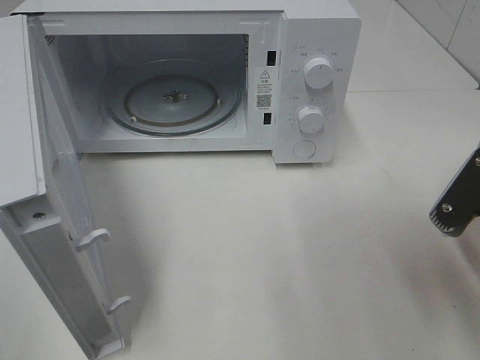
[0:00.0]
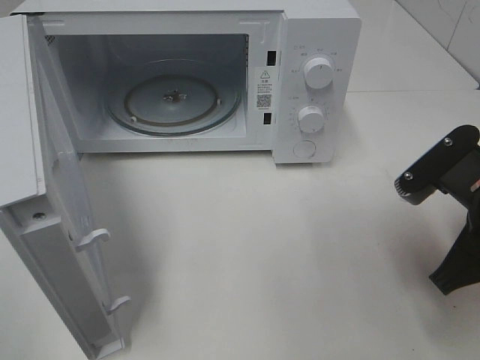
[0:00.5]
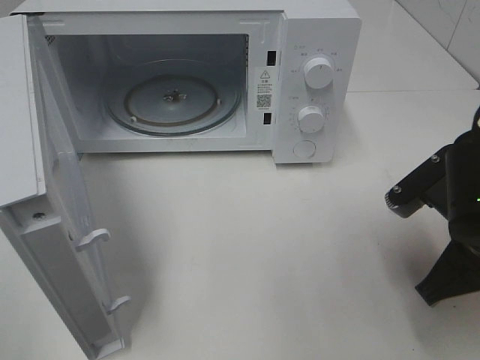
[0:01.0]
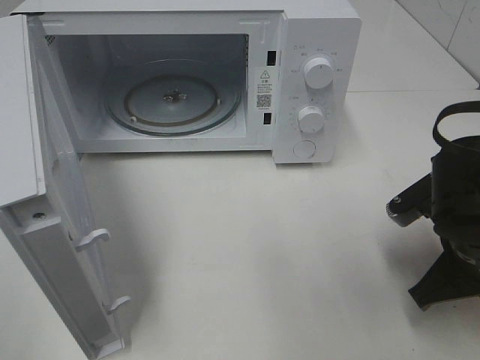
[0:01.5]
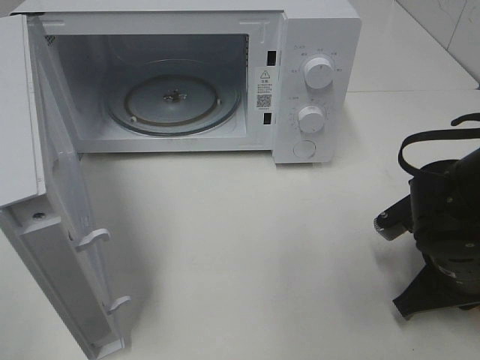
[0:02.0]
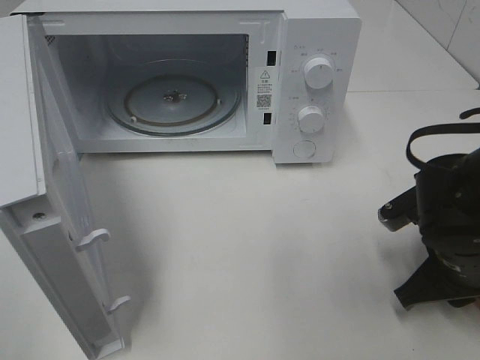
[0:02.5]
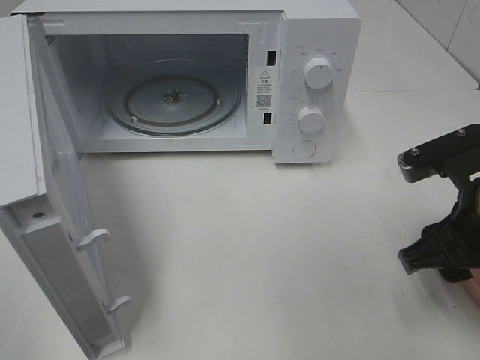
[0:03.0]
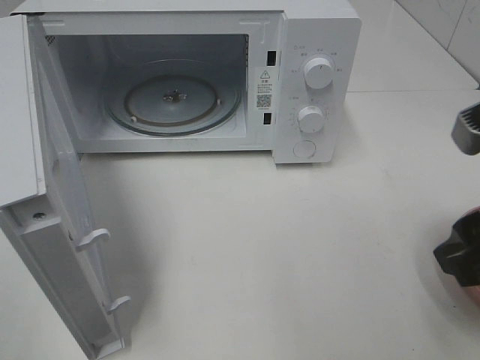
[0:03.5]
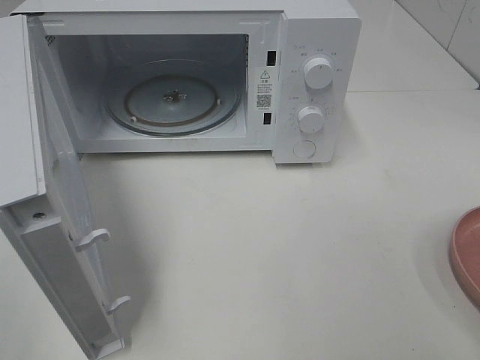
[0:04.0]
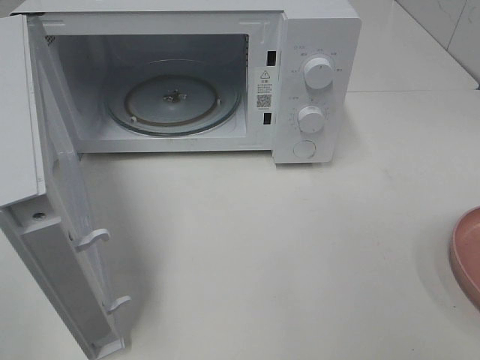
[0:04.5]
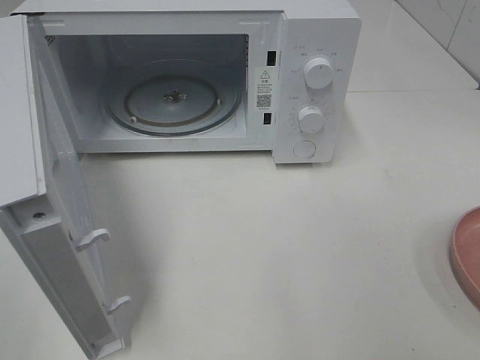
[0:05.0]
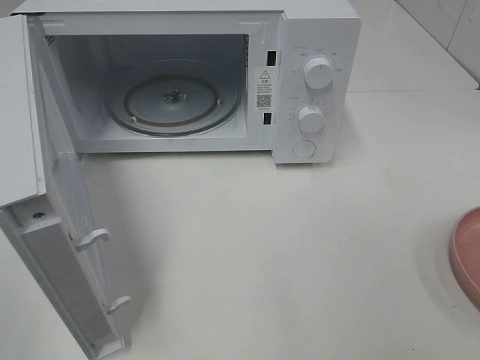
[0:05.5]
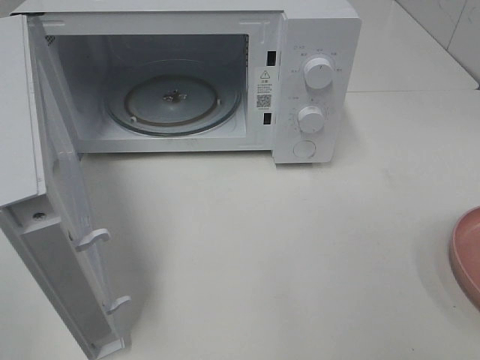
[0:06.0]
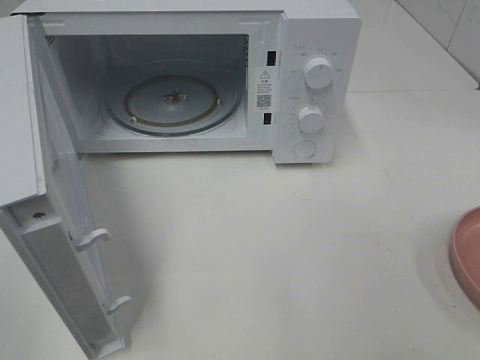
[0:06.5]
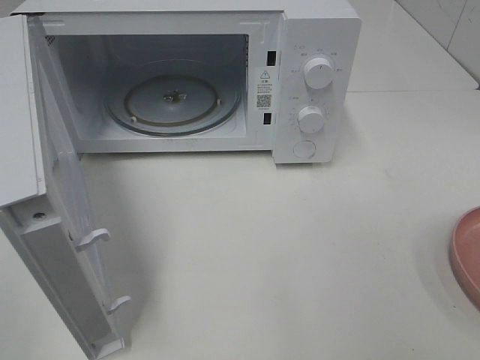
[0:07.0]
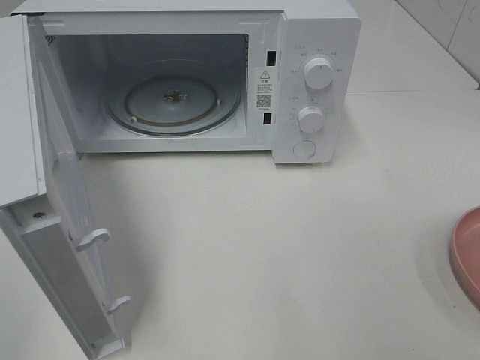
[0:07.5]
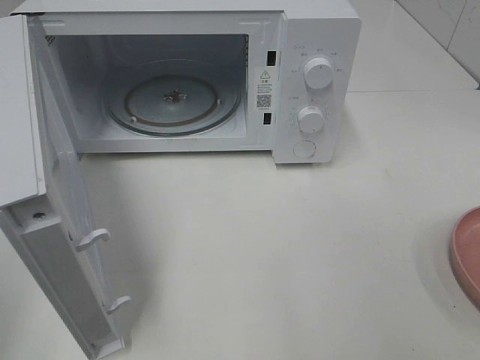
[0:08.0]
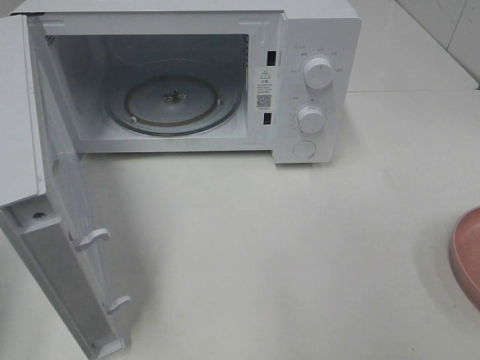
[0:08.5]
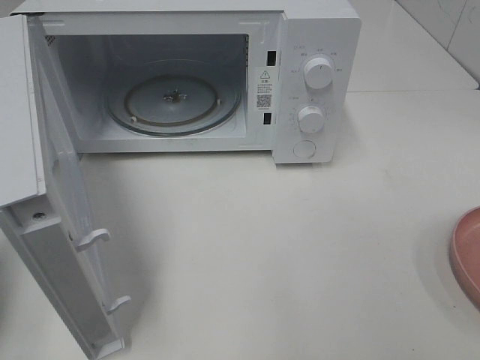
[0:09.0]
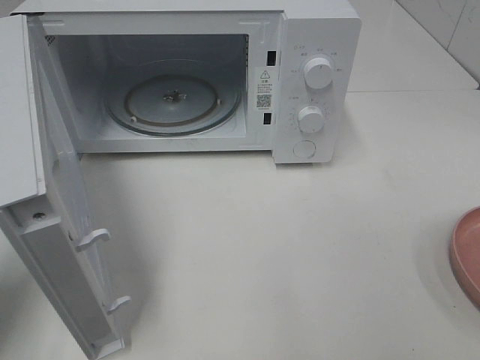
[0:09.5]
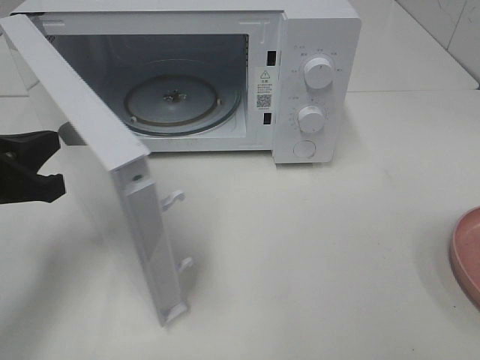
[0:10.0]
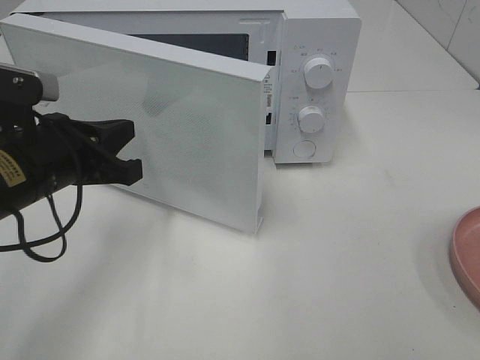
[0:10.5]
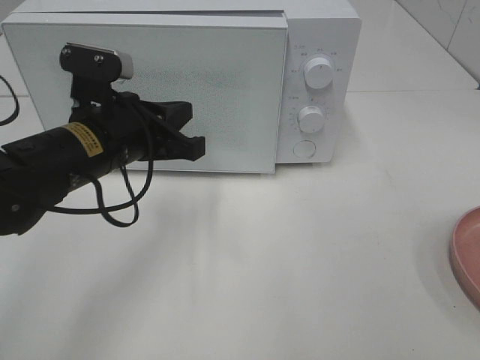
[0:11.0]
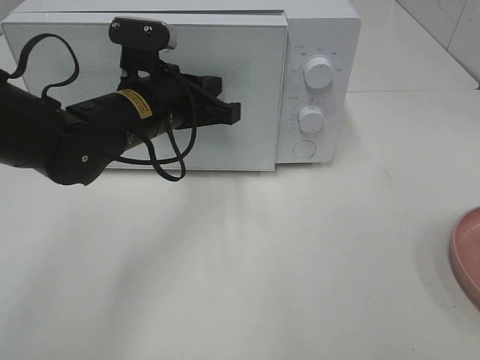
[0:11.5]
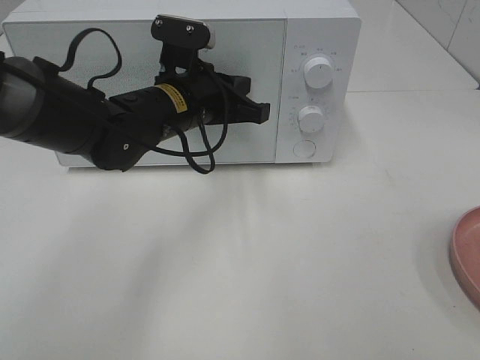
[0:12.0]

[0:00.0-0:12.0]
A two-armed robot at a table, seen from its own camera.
Task of the whole recording: Heat the burger.
Step, 0:00.0 to 0:02.5: Right hand: place the plate on the table.
0:00.0 to 0:02.0: The right gripper shifts roughly 10 cm downward and forward.
0:02.0 to 0:04.0: The right gripper goes about 25 cm upward and backward, and opens its fingers.
0:08.0 to 0:10.0: The left gripper goes roughly 20 cm forward, downward and to the right.
0:10.0 to 0:12.0: The left gripper travels to the right and forward by approximately 25 cm.

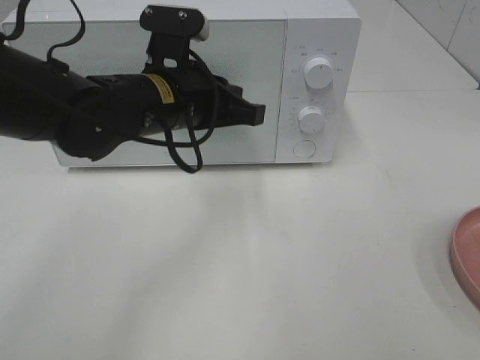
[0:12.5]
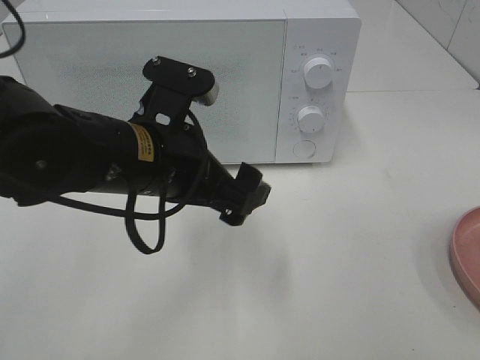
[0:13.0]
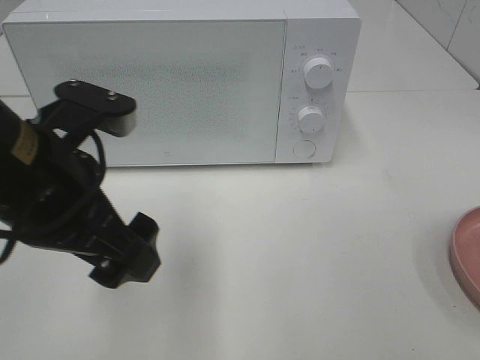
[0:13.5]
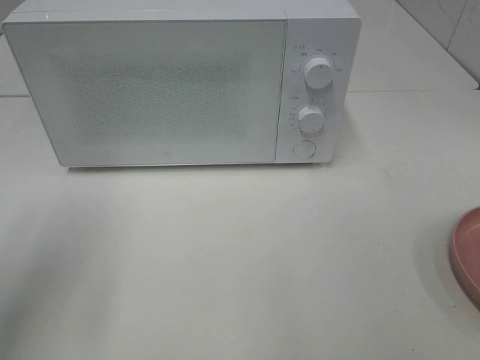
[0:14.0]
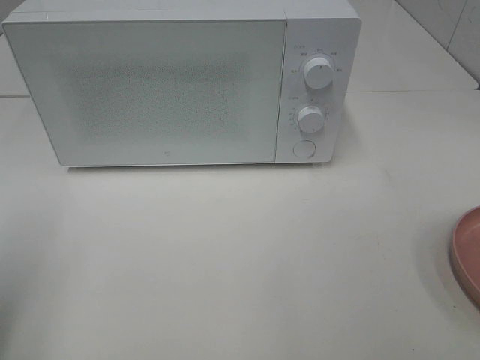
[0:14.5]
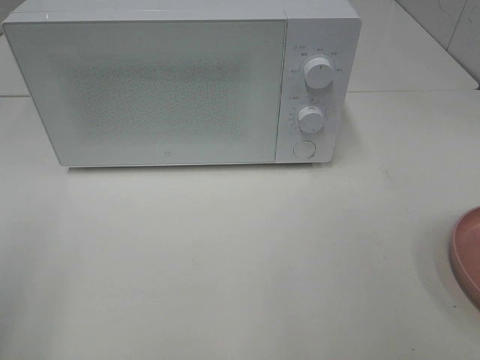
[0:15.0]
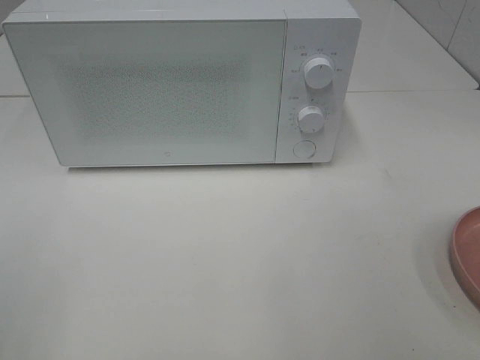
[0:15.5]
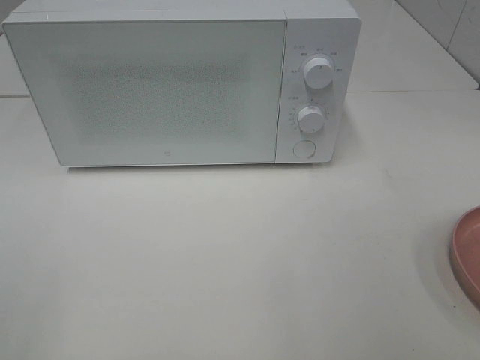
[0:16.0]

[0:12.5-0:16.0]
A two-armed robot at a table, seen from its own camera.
Task of the whole recording: Heat the burger.
0:12.5 to 0:14.5: The left gripper goes some 30 cm to the left and backward, and opens its fingers.

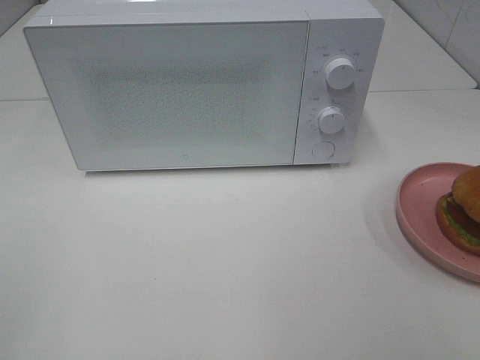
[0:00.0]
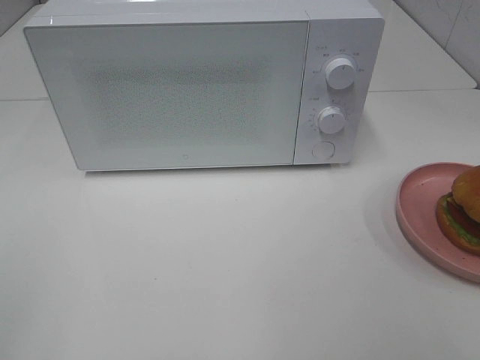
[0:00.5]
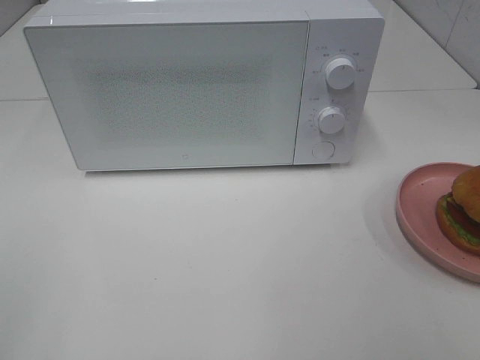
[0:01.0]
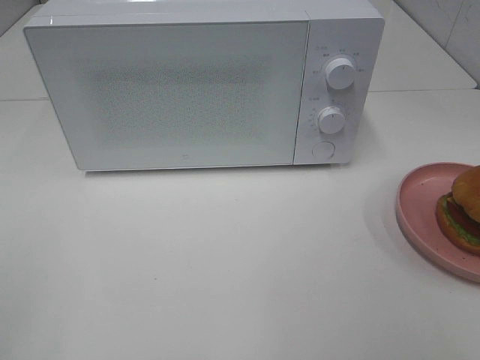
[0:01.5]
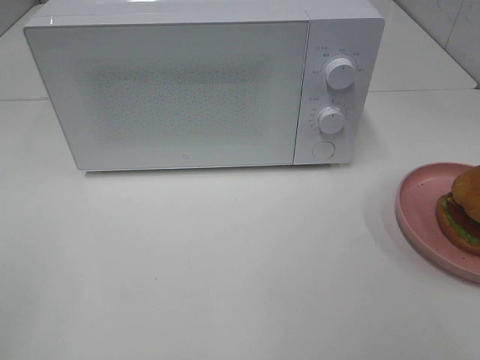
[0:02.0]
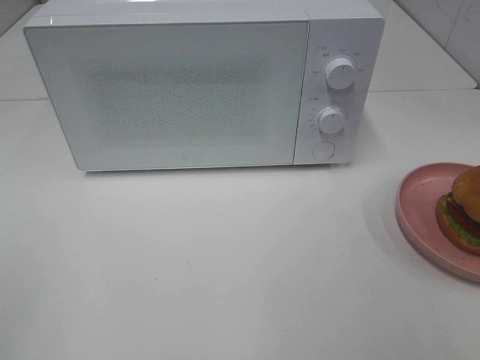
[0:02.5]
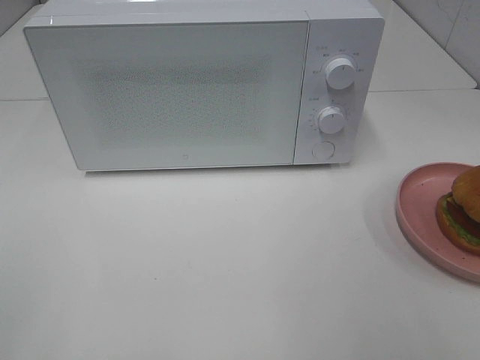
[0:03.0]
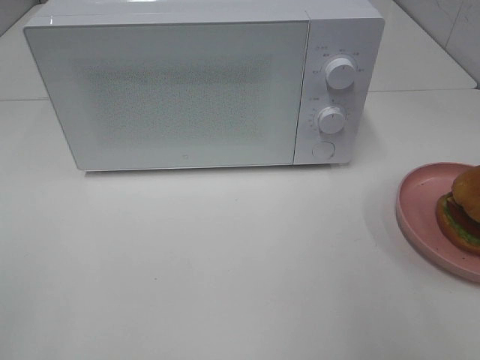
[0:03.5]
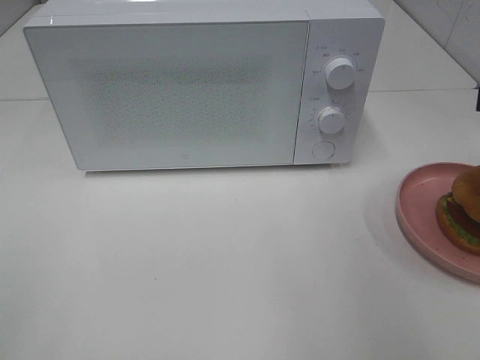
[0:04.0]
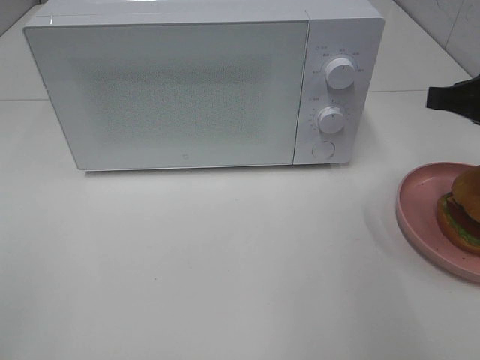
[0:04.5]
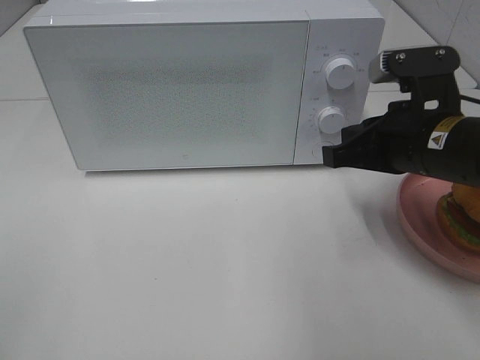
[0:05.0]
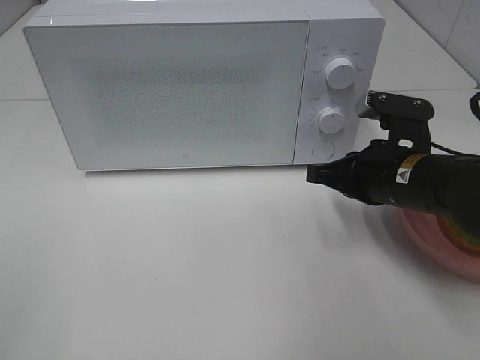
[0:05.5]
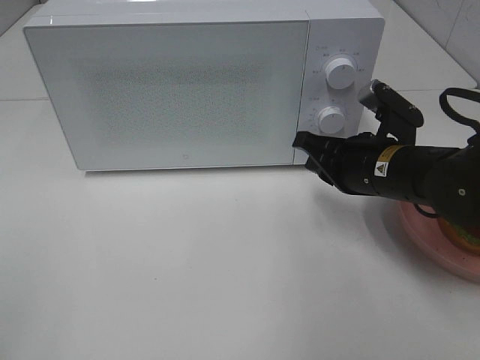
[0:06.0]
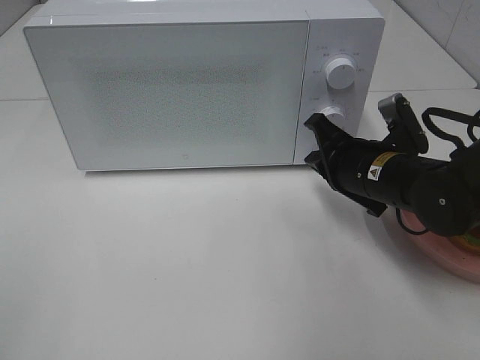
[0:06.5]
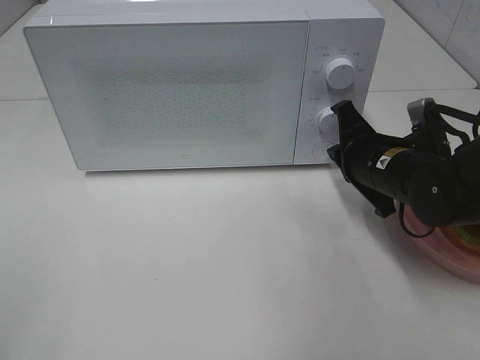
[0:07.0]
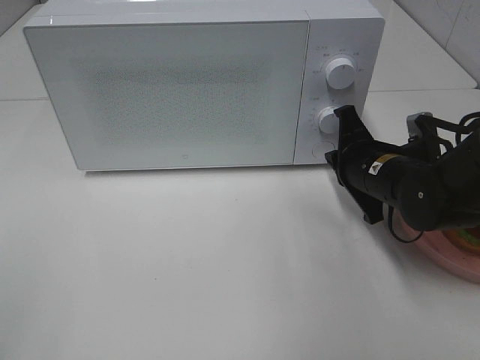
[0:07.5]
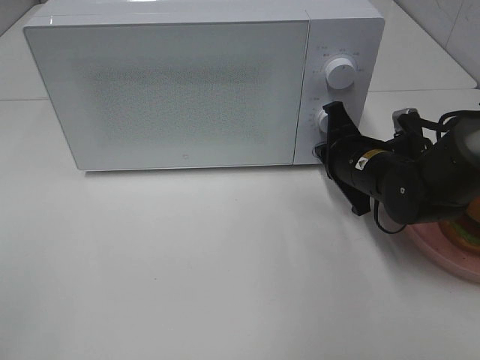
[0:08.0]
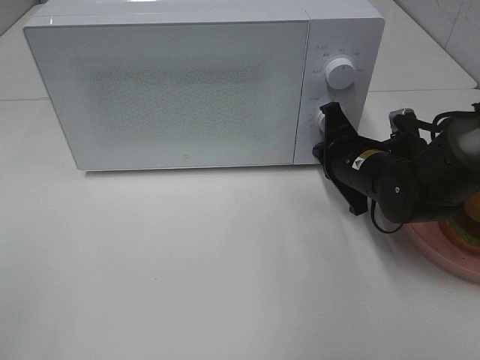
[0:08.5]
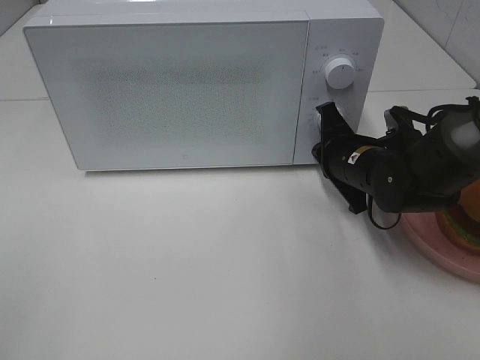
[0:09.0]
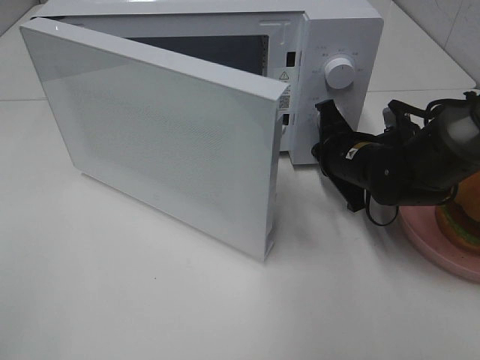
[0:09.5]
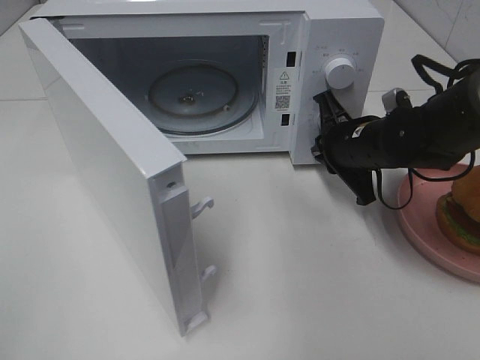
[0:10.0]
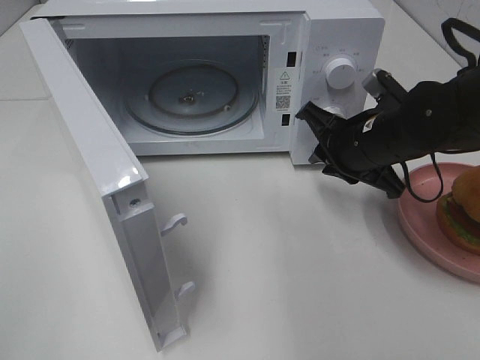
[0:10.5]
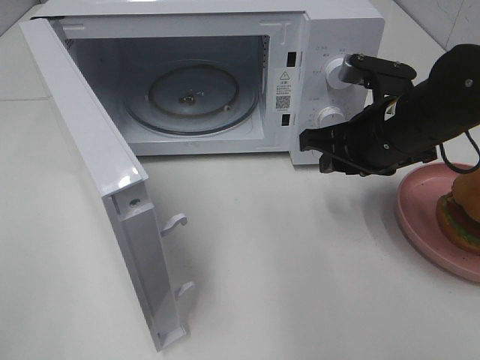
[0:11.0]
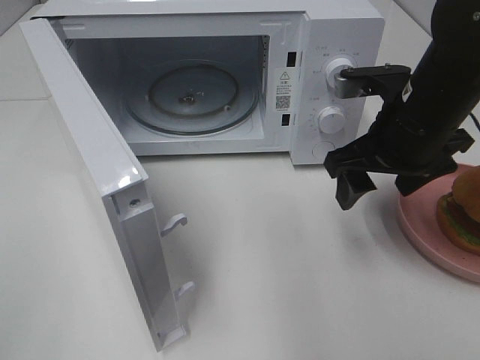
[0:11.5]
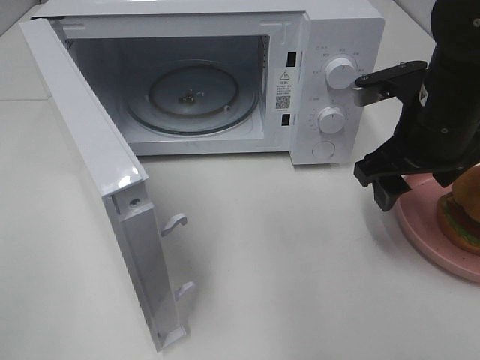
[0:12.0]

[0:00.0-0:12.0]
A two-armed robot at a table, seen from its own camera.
Task of the whole recording: Heat the burger.
Step, 0:00.0 to 0:10.0: Right hand: press the switch.
0:00.0 to 0:02.0: The two grippers keep their place.
0:04.0 to 0:06.0: The right gripper is displaced downward, to the left and forward by about 20 cm, and closes up.
0:06.0 to 0:08.0: The right gripper moves approximately 5 cm.
0:10.0 to 0:12.0: The right gripper travels upward and backward by about 10 cm, and opens.
